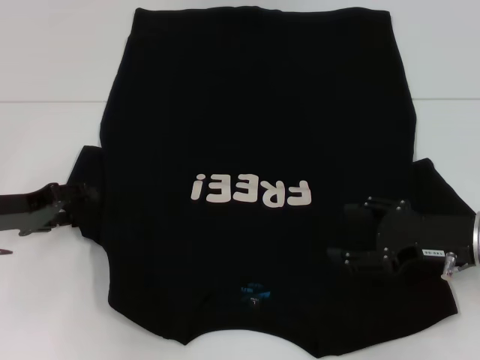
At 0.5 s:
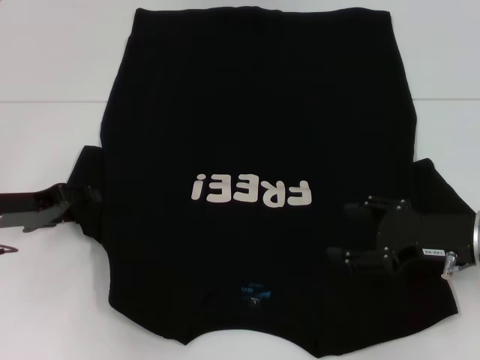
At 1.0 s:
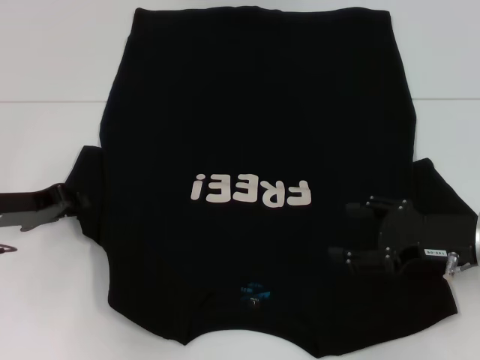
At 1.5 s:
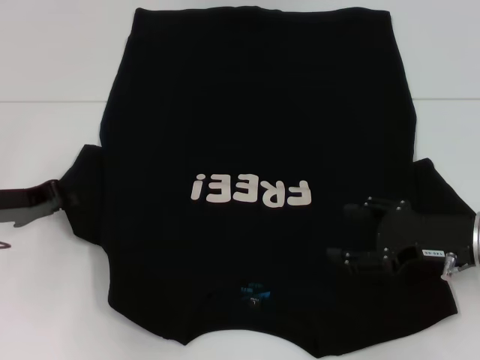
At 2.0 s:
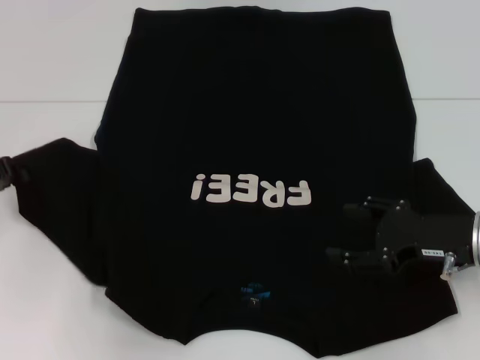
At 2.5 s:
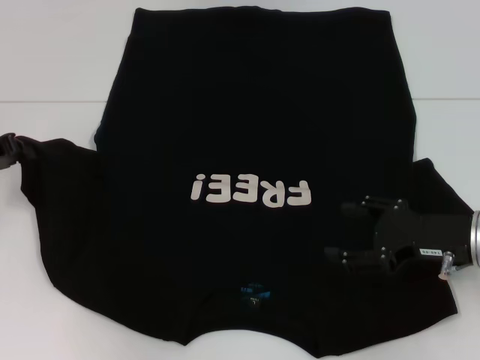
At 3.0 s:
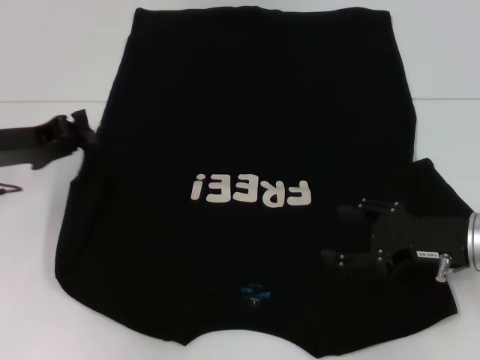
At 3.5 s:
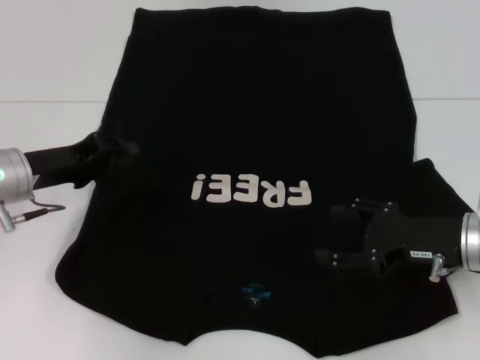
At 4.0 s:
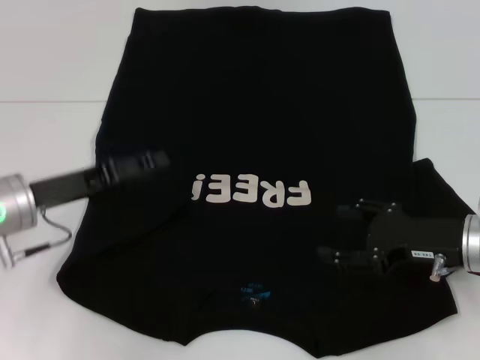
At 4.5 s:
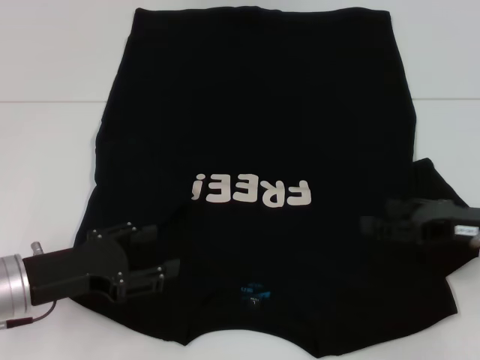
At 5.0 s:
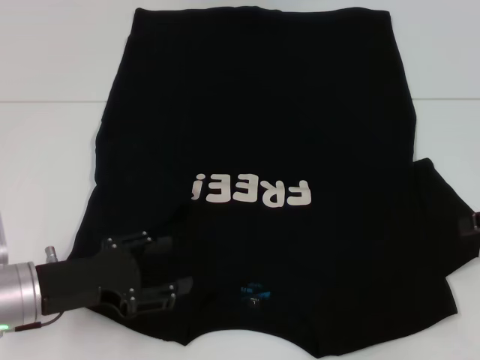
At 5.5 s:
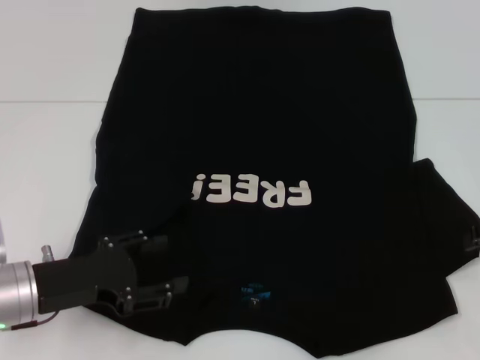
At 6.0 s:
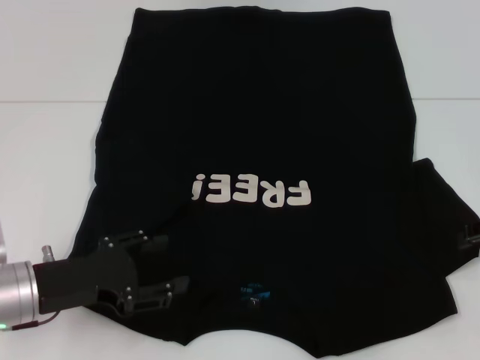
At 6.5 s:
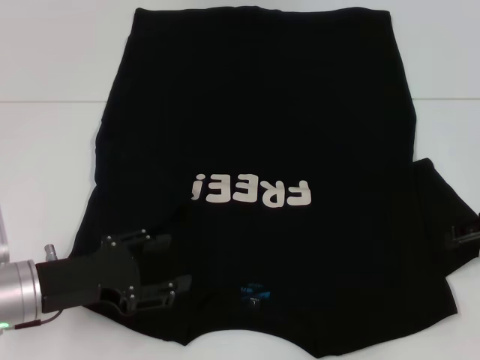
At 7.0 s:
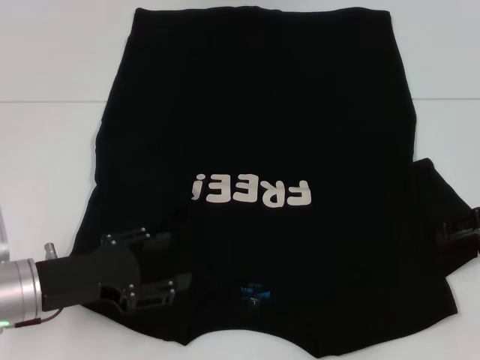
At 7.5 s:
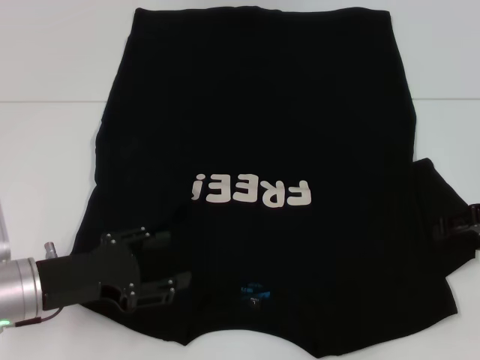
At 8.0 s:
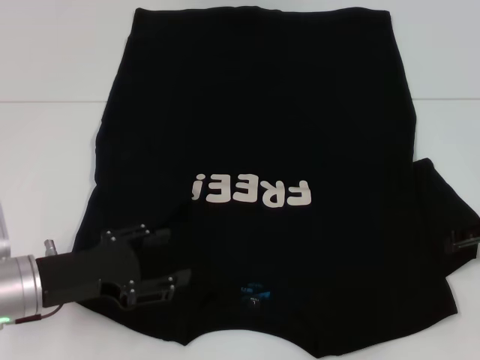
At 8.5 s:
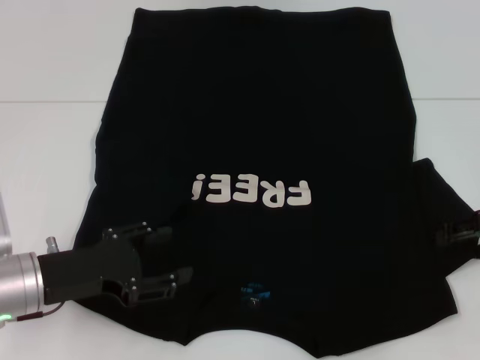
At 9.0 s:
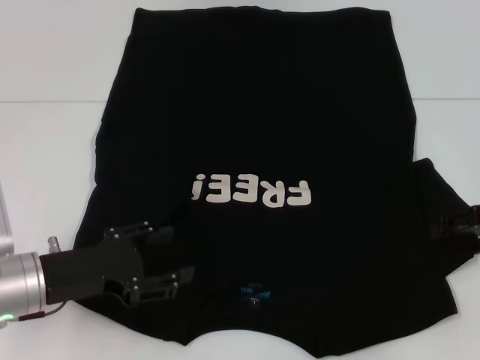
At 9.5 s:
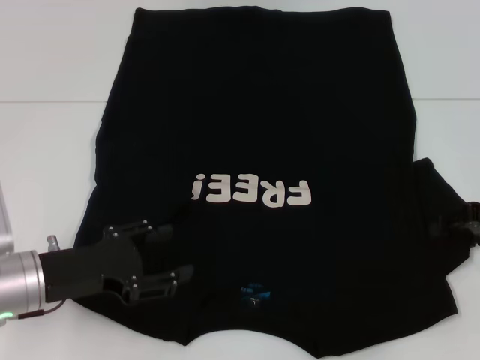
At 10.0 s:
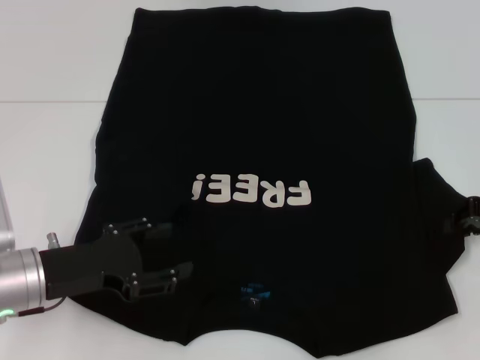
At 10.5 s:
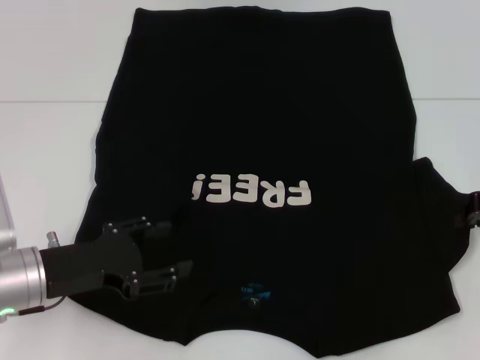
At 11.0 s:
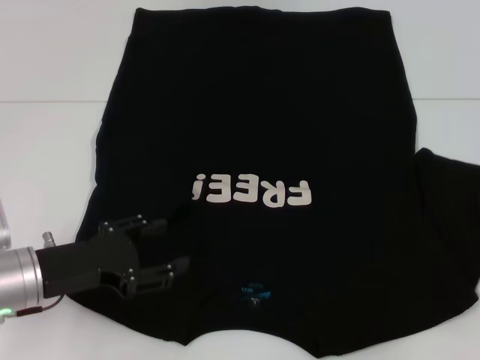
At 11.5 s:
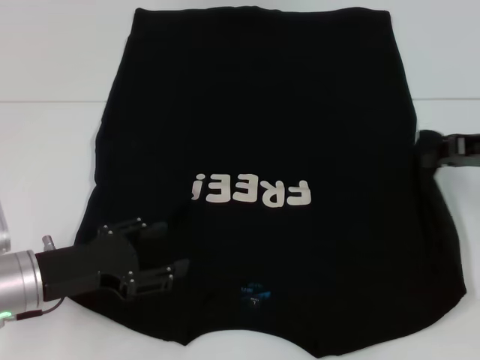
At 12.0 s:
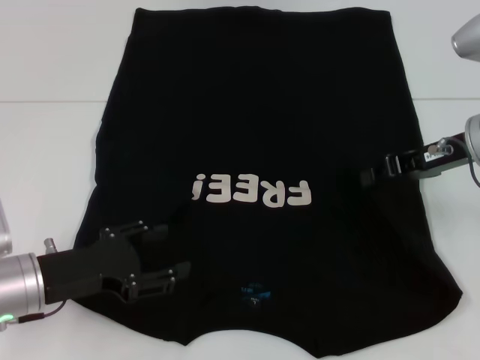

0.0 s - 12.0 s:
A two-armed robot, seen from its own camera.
Step, 0.0 s - 4.5 s: Fold the bottom left sleeve with your left hand.
0.0 s - 2.0 s: The left gripper closes up.
2.0 s - 4.0 s: The left gripper moves to the right, approximately 10 cm, and opens up.
4.0 s - 6.0 s: The left gripper moves backward, roughly 5 cm; the right gripper travels to the right and upward by about 10 cm.
6.0 s - 8.0 s: The grippers move only a little.
8.0 s - 10.0 s: The right gripper closes.
10.0 s - 12.0 s: The right gripper heads to the left, covering approximately 10 cm.

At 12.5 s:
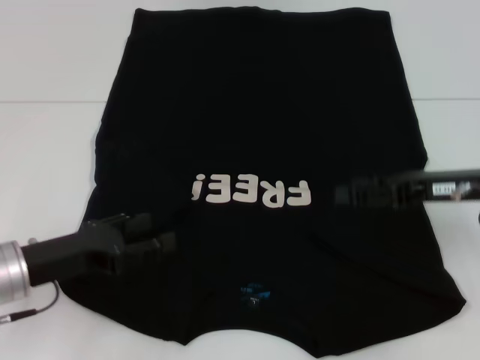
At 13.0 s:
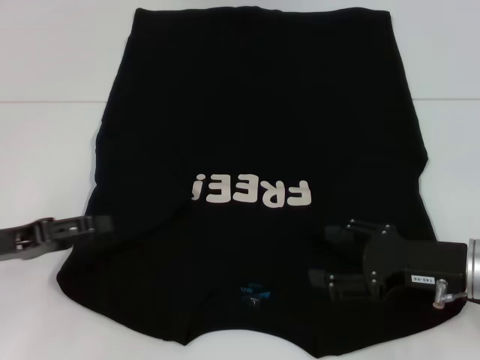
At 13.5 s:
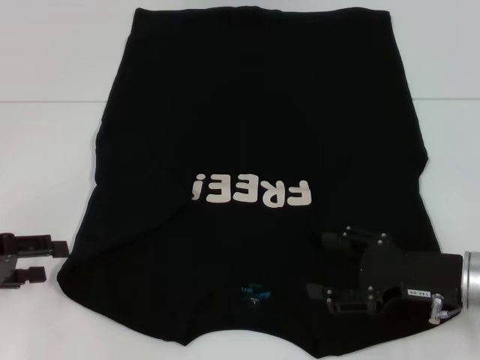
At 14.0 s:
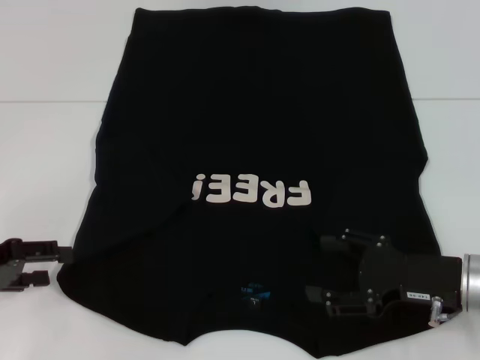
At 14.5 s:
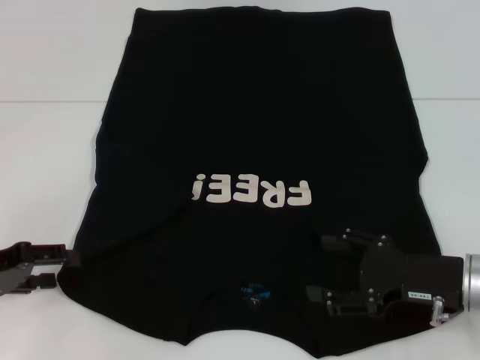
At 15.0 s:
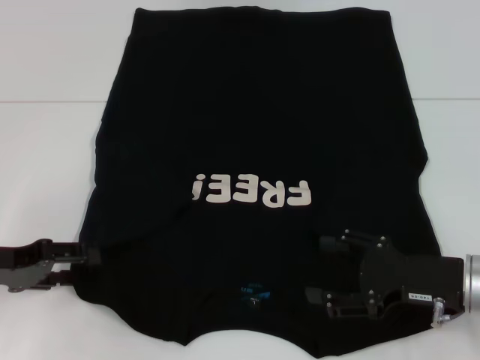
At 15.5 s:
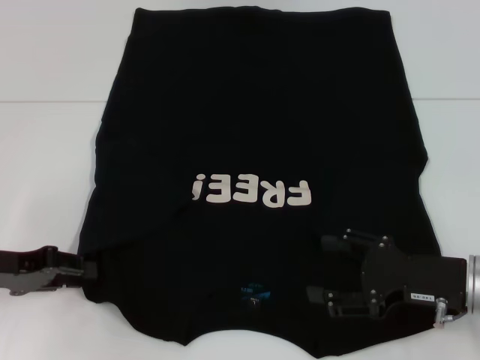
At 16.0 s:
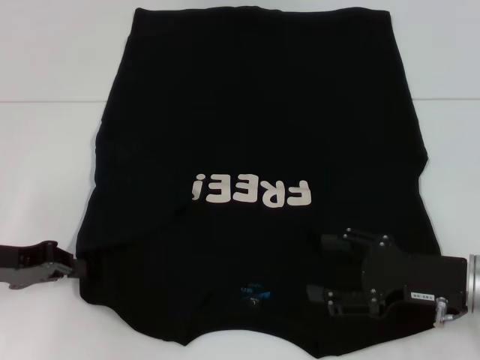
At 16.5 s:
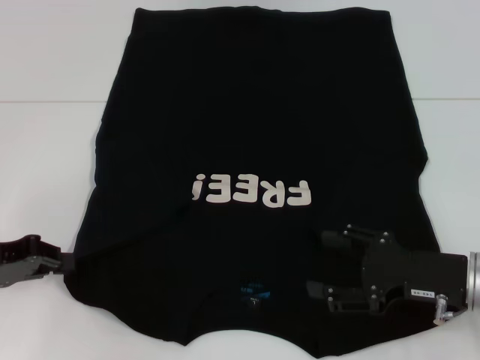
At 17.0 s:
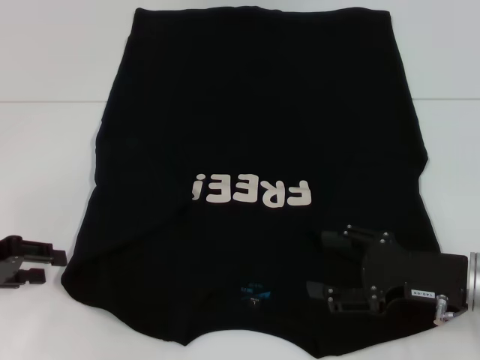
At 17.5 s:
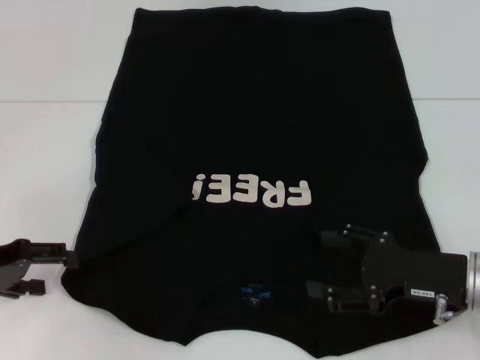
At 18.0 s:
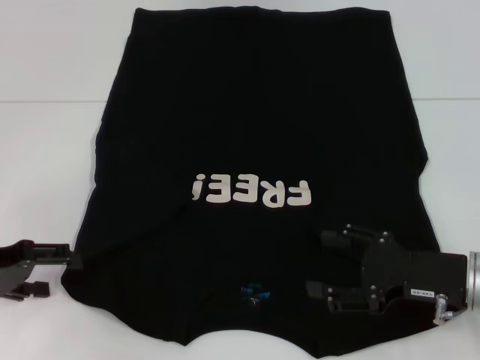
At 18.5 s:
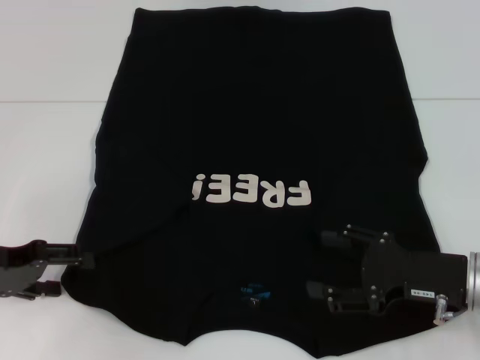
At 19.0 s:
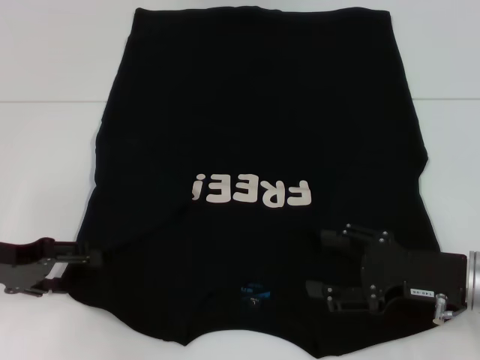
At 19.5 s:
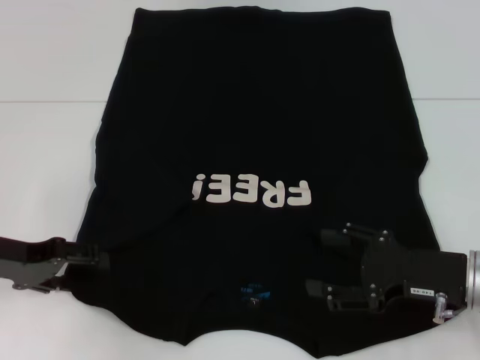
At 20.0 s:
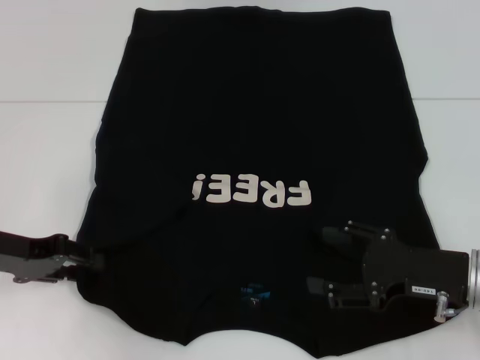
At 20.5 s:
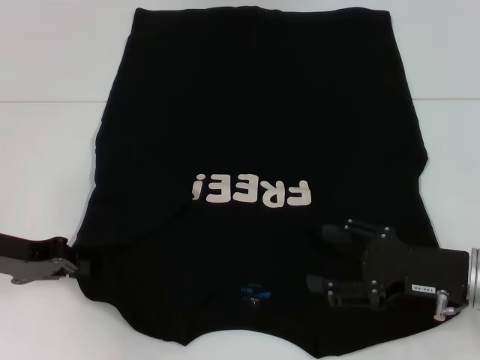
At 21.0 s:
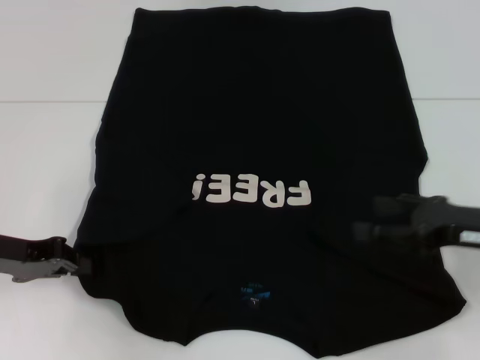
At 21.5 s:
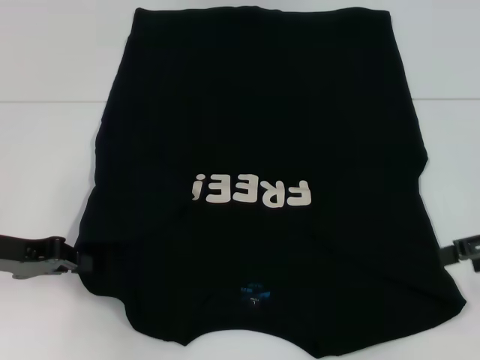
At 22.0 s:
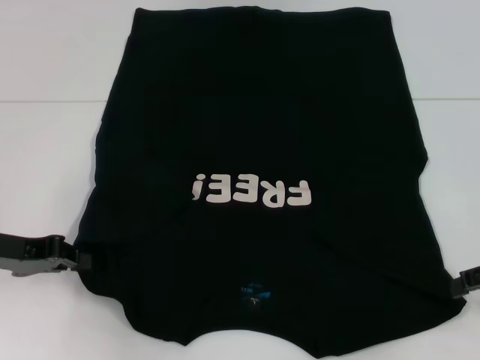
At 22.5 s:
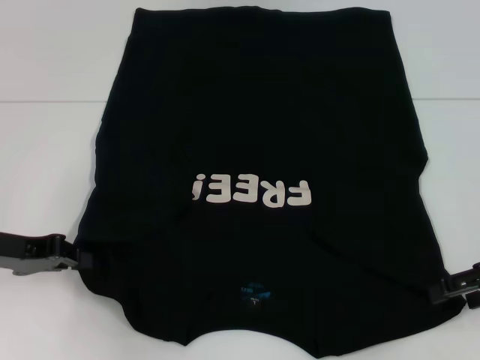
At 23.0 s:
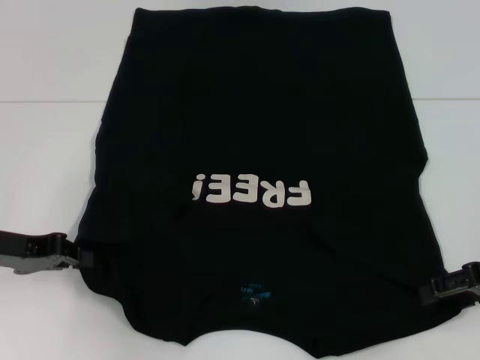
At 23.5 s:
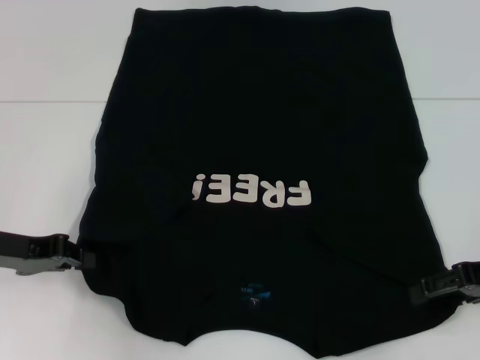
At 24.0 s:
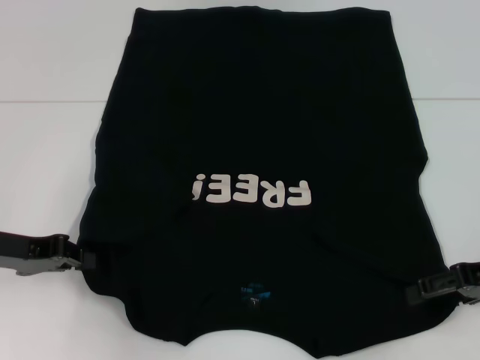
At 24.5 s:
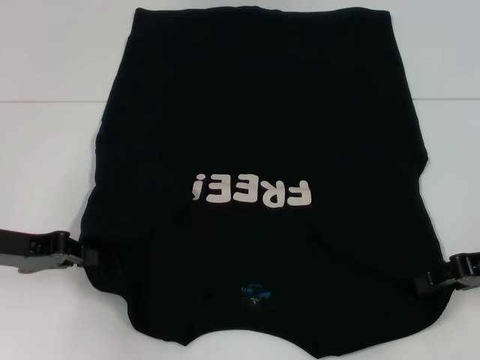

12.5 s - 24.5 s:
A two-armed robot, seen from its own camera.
Step, 12.5 s - 20.0 s: Grab the bottom left corner with your left hand.
12.5 s - 14.5 s: The left gripper travels to the left by about 10 cm. The right gripper goes approximately 10 cm downward and backward, and opens its fingers.
14.5 s - 16.5 s: The left gripper closes.
16.5 s - 18.5 s: The left gripper opens.
18.5 s - 20.5 s: The left gripper closes.
20.5 s - 22.5 s: The right gripper travels to the right and upward by about 10 cm.
22.5 s - 24.5 s: There are only small adjustments of the grippers.

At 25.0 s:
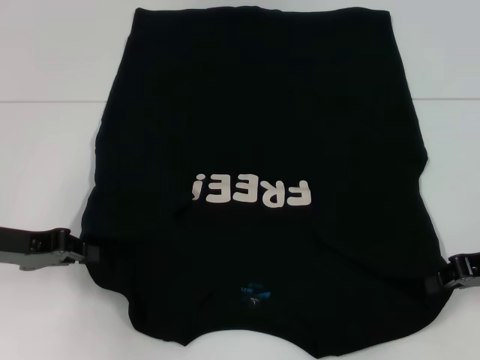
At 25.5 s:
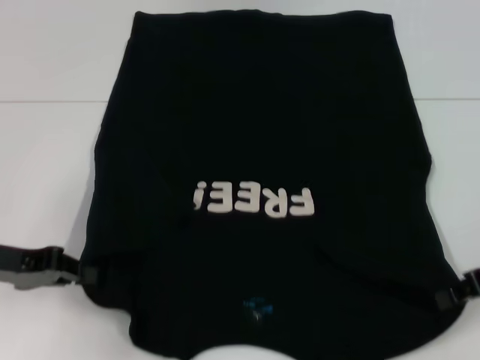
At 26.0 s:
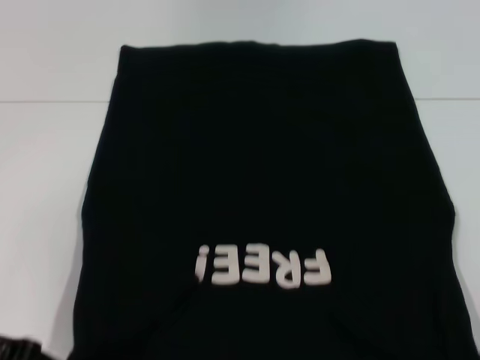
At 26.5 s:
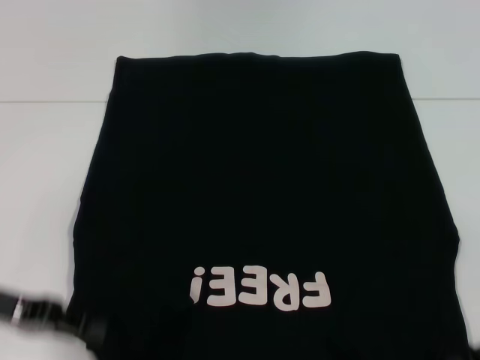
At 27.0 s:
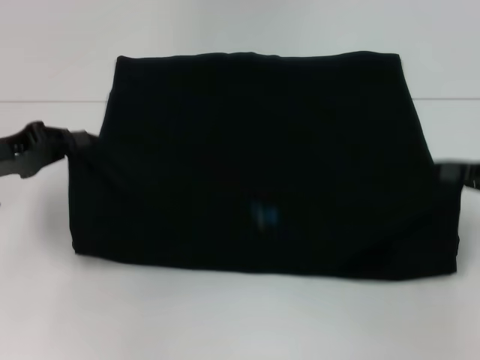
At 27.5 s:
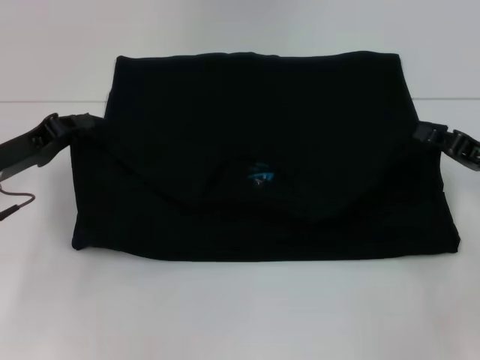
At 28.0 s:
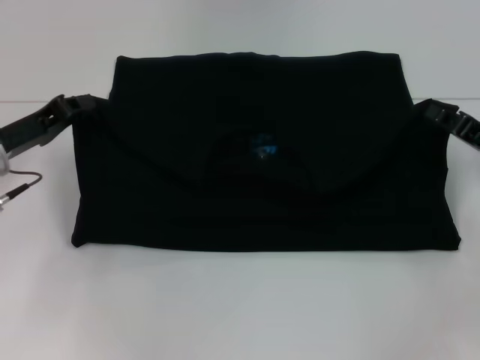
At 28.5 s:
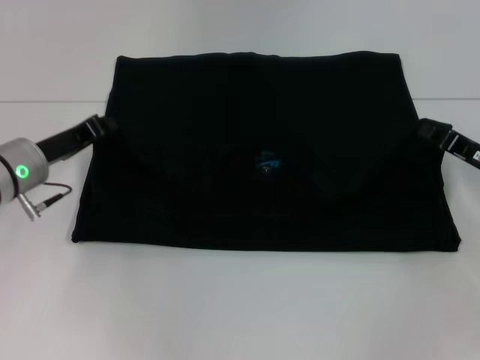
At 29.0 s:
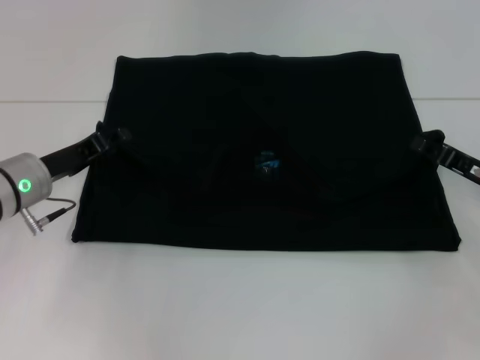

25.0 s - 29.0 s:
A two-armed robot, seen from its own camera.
25.0 s - 27.0 s: The left gripper moves some 5 cm backward and comes back.
27.0 s - 29.0 s: The left gripper is displaced to the right and downward by approximately 10 cm; the right gripper heads downward and to the left, covering about 10 cm.
